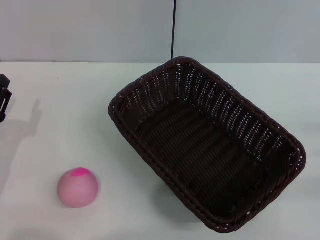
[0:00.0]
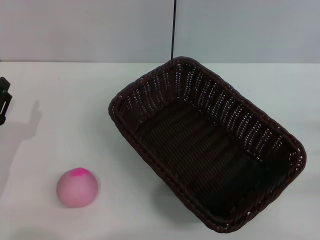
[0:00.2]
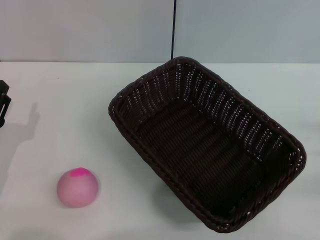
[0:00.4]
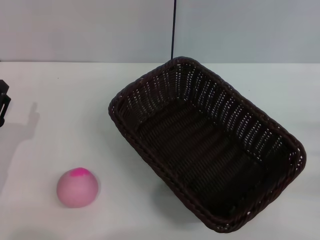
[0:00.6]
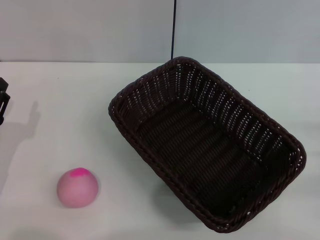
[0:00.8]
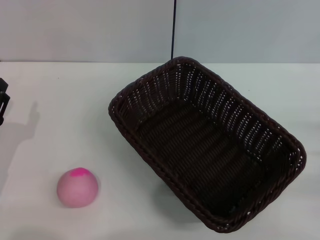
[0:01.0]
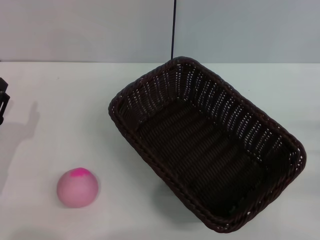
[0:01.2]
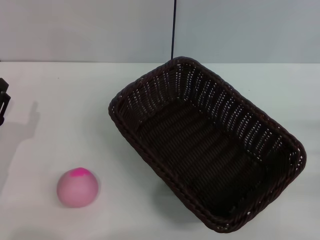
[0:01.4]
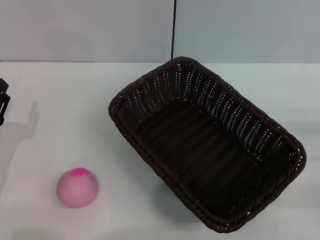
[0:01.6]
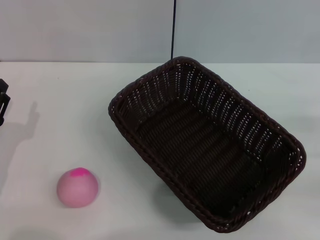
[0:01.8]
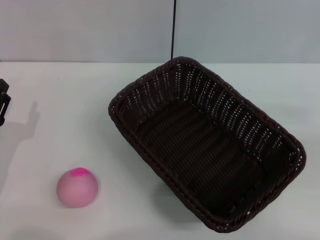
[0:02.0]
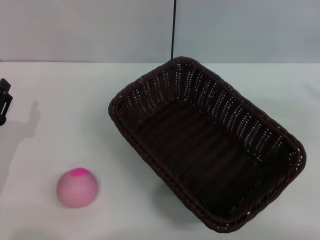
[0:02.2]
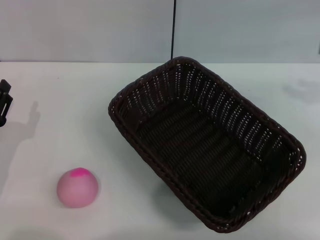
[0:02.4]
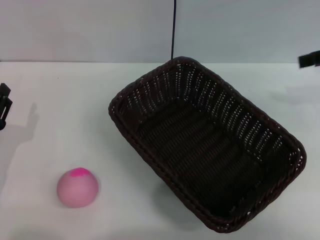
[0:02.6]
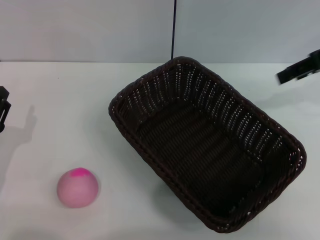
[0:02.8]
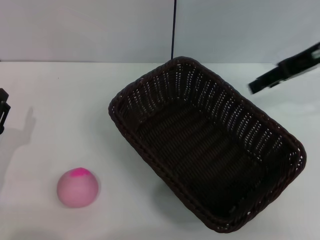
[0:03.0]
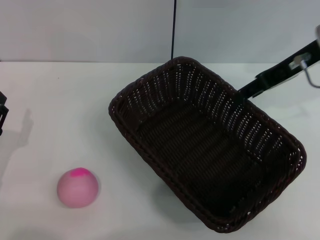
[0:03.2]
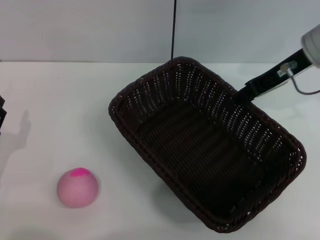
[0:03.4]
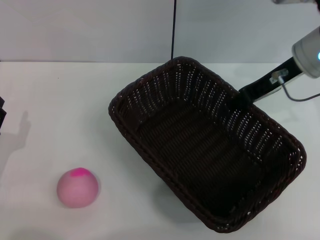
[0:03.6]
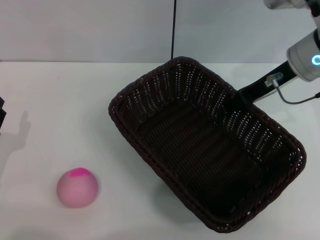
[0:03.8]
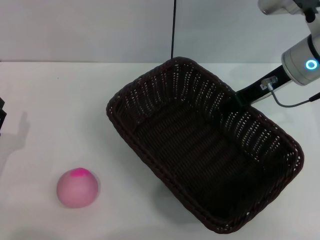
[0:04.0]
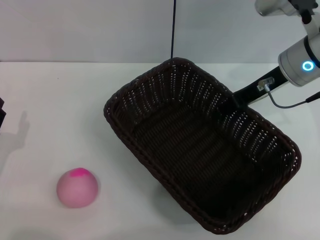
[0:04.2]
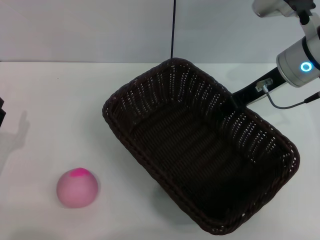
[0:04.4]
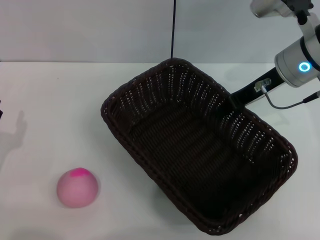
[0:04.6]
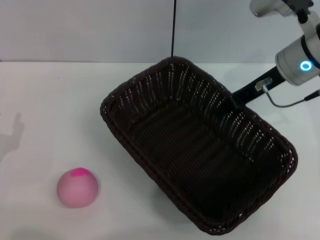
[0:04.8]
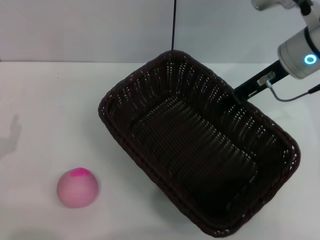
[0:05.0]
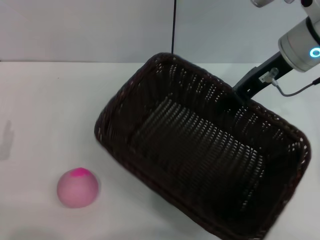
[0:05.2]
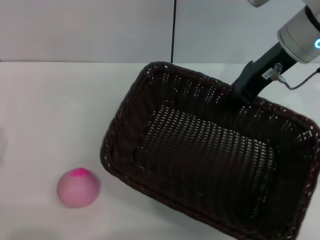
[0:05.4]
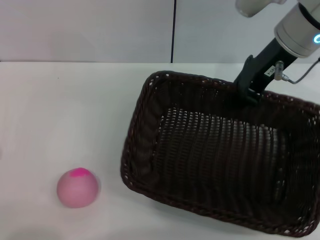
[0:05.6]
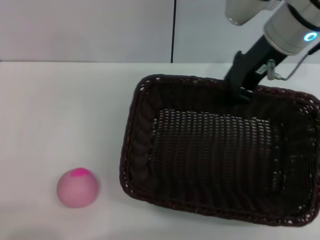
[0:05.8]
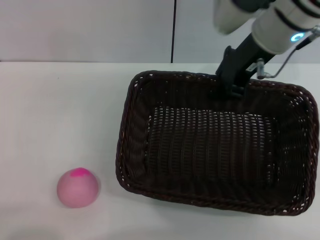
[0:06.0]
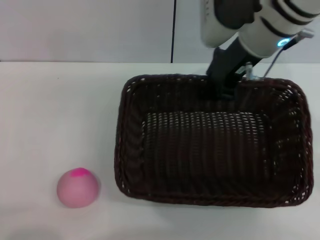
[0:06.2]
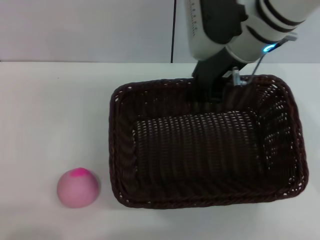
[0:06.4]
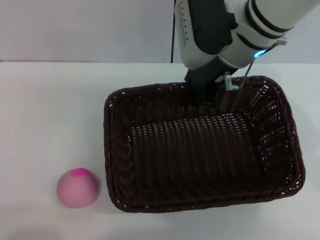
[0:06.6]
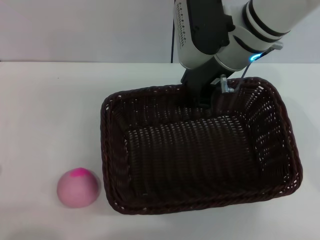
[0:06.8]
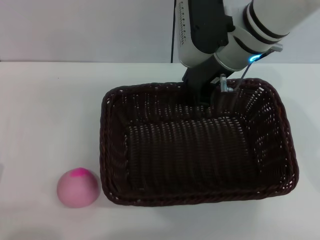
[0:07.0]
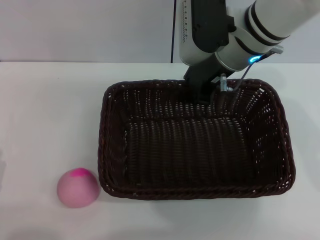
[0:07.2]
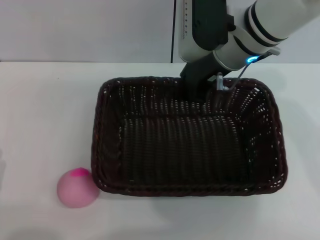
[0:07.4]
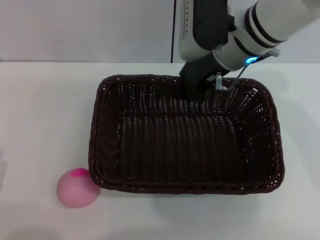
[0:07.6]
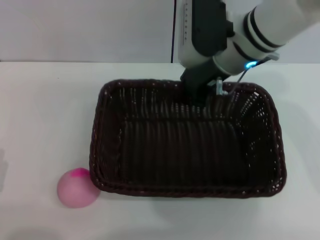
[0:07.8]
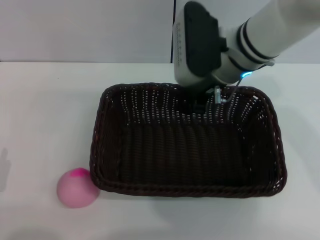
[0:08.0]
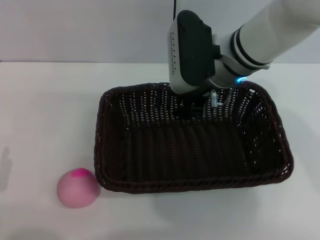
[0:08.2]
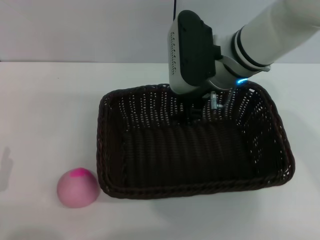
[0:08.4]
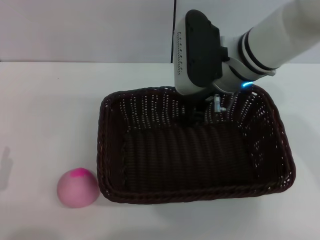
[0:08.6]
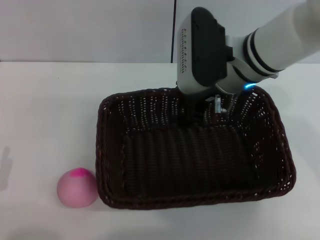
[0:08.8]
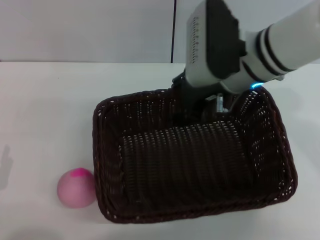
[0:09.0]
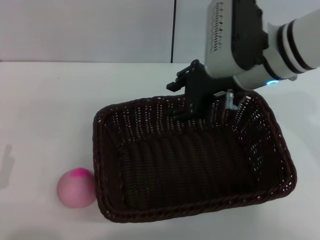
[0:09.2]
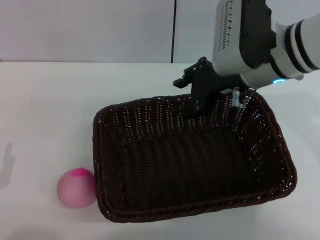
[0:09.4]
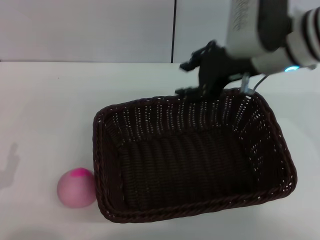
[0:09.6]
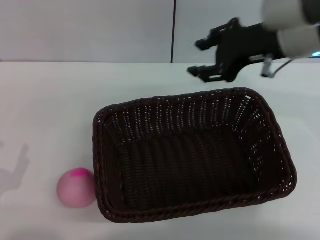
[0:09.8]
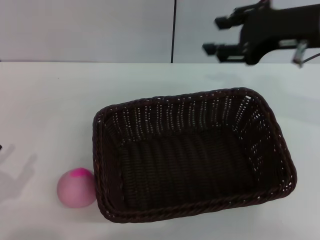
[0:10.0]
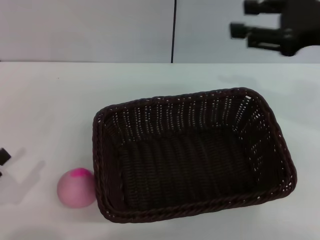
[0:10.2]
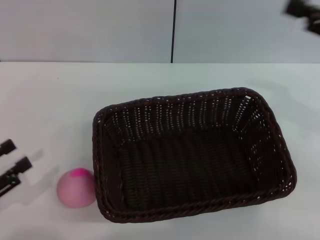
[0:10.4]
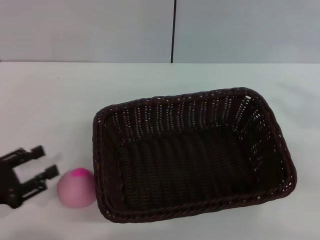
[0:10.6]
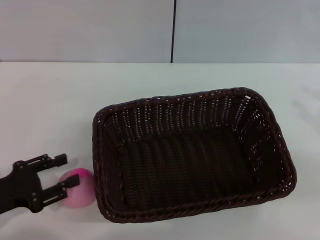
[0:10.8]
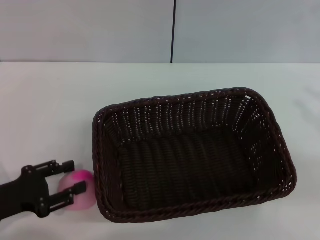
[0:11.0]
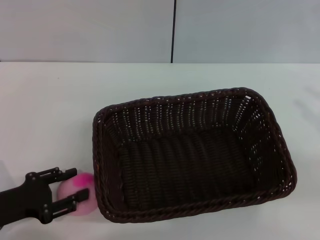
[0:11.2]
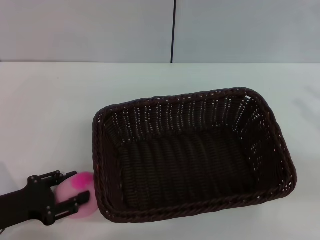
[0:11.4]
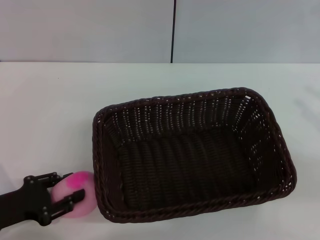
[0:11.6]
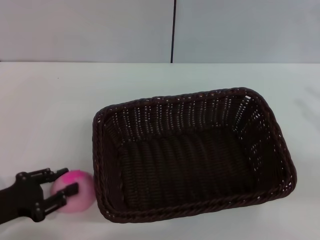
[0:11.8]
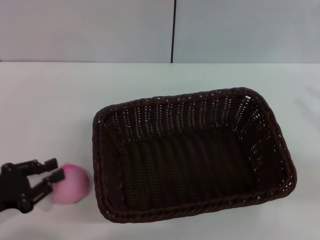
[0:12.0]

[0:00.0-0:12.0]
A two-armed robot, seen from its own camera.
Step, 0:00.0 to 0:05.4: Pick up the dark basket with the right gripper.
Step, 0:05.6 to 0:09.6: Place the dark basket in the center of view with the right gripper.
0:01.6 to 0:03.0: The right gripper heads upward, forward and to the left, covering about 30 cm.
0:03.0 to 0:04.4: The right gripper shifts about 10 cm downward and to the left, and closes up.
0:04.4 to 0:06.0: The right gripper goes about 10 cm upward and to the left, and closes; the left gripper travels backward by approximately 10 cm.
0:06.0 to 0:07.6: The right gripper ends up about 5 cm from where it was.
0:07.6 to 0:09.0: The right gripper opens up.
0:09.0 to 0:10.4: The left gripper moves roughly 5 cm; the right gripper is displaced to the right and backward by some 20 cm.
0:10.4 to 0:12.0: The right gripper moves downward and to the right, approximately 10 cm.

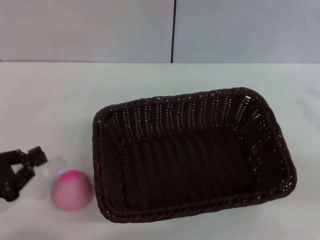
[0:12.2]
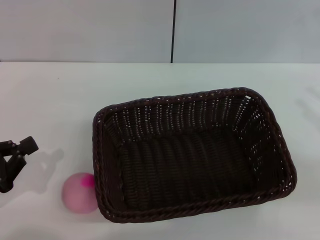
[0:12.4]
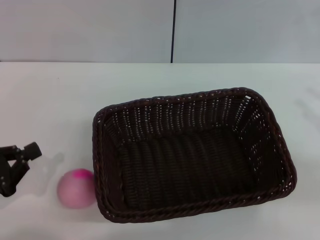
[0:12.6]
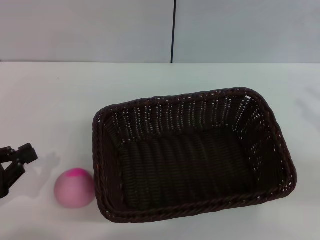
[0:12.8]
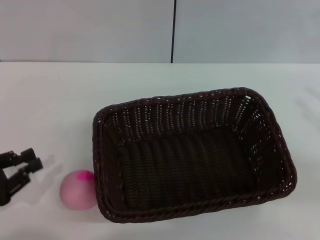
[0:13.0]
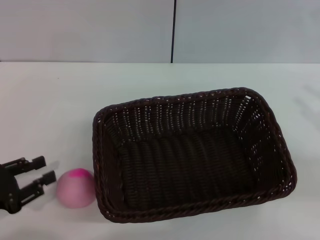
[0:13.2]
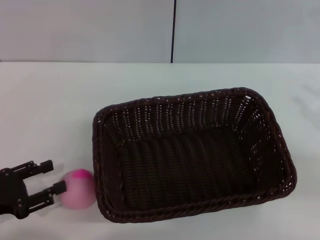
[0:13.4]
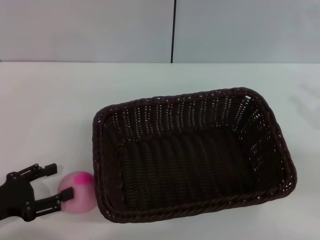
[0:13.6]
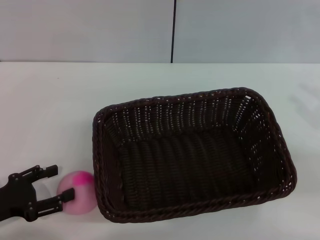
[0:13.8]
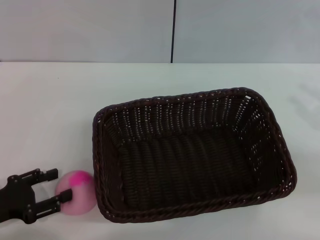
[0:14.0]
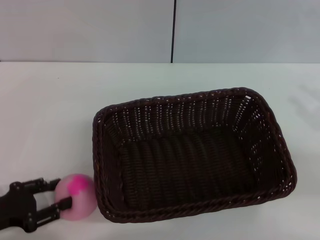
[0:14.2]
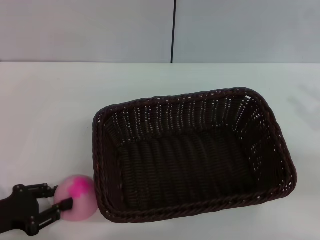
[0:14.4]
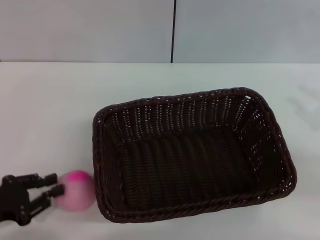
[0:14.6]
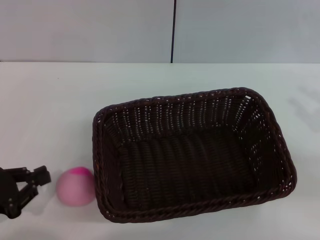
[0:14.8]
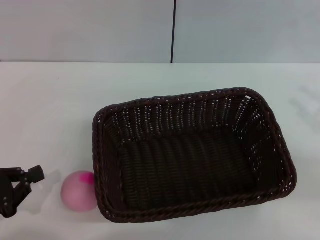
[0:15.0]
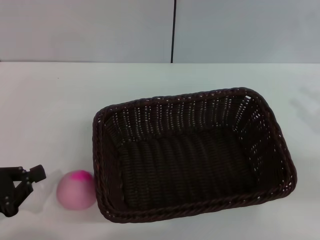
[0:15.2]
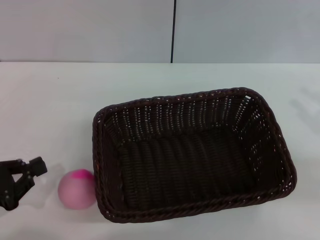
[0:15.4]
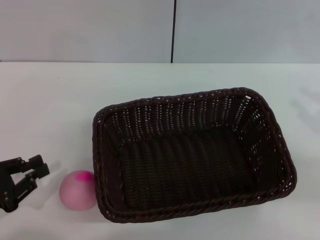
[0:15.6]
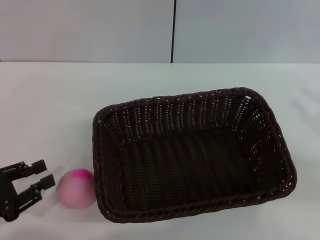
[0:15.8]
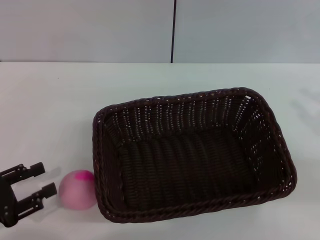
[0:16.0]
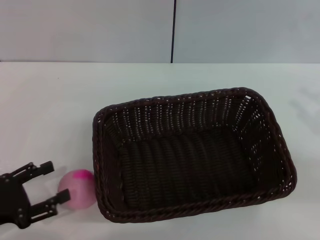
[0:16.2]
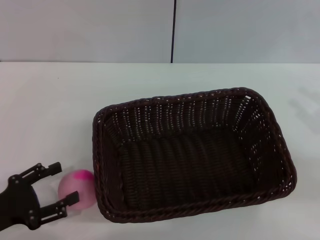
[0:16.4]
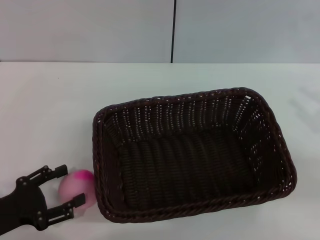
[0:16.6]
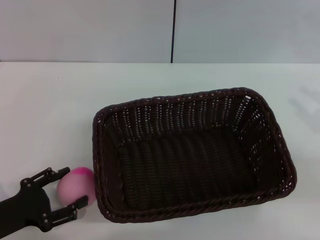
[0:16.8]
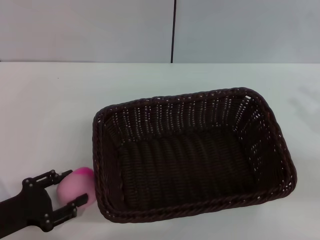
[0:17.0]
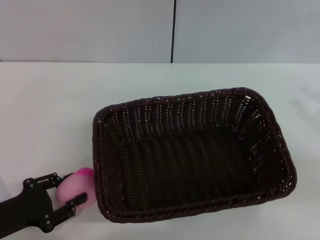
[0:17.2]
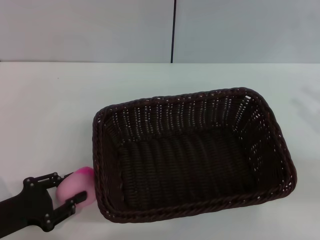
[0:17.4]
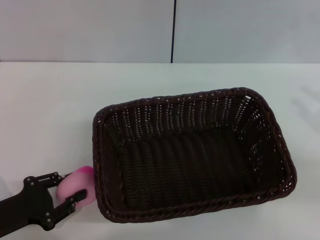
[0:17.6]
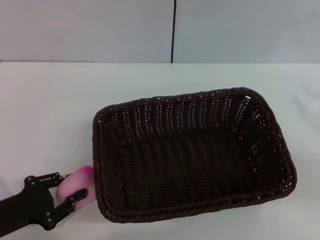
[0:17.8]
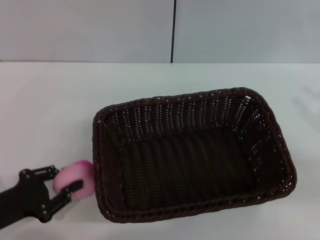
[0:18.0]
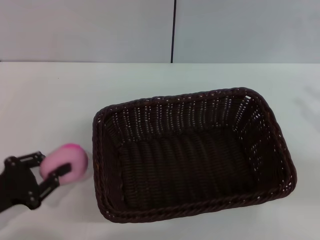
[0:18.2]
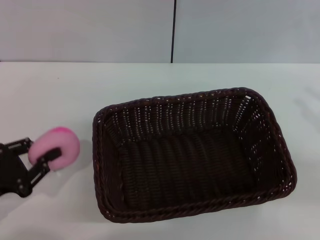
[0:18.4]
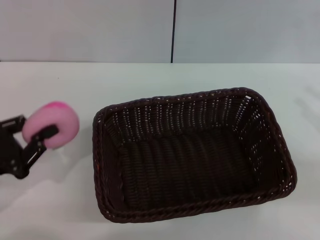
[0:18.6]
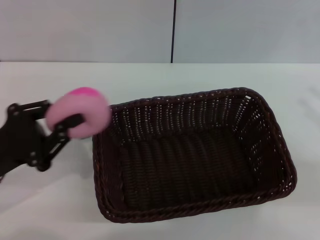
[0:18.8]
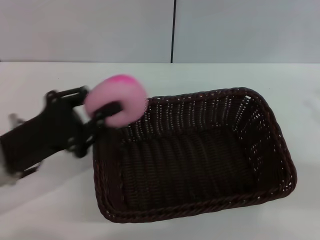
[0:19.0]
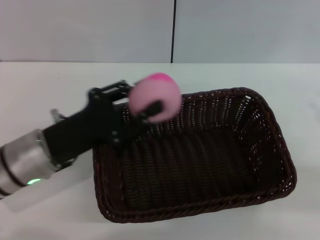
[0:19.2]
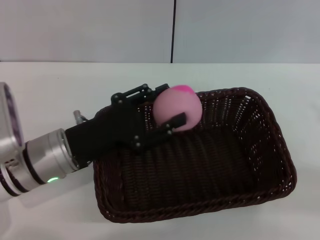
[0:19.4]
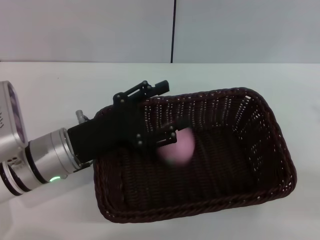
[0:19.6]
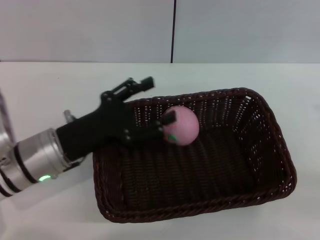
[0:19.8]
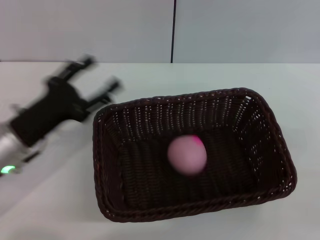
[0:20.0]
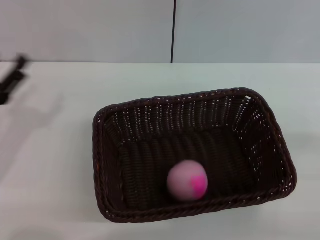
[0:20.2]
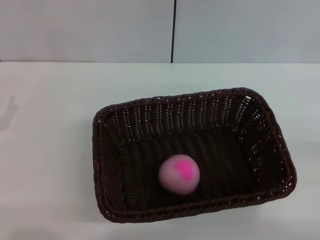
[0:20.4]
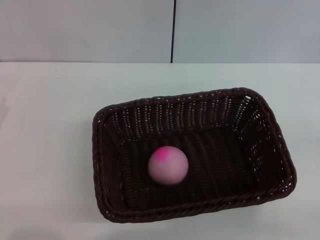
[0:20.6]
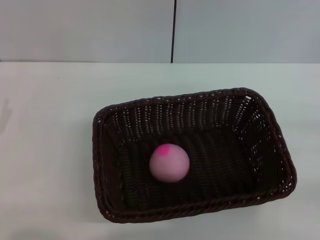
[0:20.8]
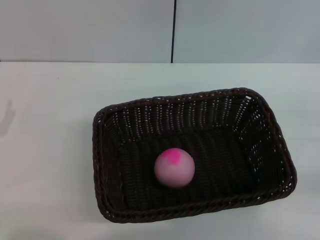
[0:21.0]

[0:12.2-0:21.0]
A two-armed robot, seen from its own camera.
Step, 0:12.2 to 0:18.4: Pick up the peach with the left gripper.
Step, 0:18.8 to 0:19.8: Place the peach into the basket with the left gripper.
0:12.2 to 0:13.6: The left gripper opens its fingers.
0:13.6 to 0:15.2: The left gripper closes up.
0:15.2 to 0:16.6: The left gripper opens its fingers.
0:16.6 to 0:18.0: The left gripper closes.
0:18.0 to 0:19.6: The left gripper is displaced to the right and forward by approximately 15 cm, and opens.
0:19.6 to 0:21.0: The right gripper shifts approximately 5 cm downward. The left gripper moves to the left, about 15 cm.

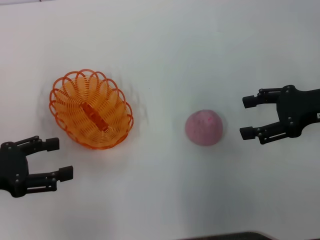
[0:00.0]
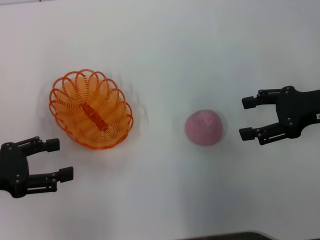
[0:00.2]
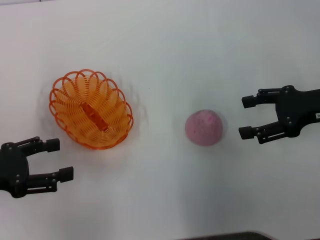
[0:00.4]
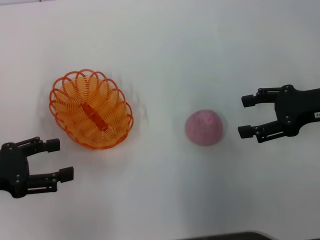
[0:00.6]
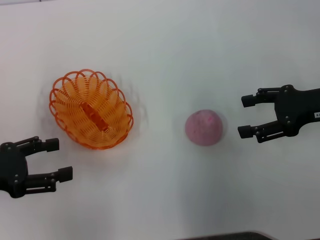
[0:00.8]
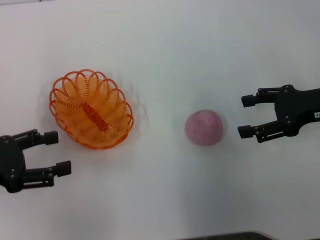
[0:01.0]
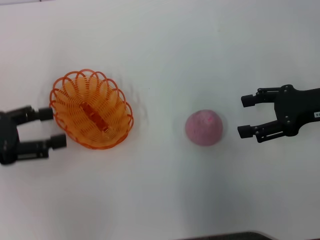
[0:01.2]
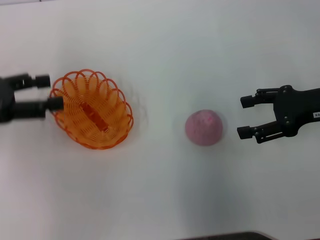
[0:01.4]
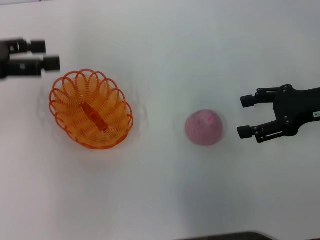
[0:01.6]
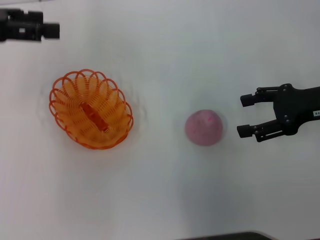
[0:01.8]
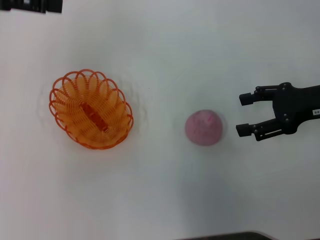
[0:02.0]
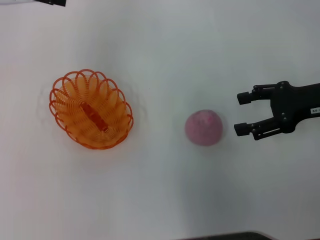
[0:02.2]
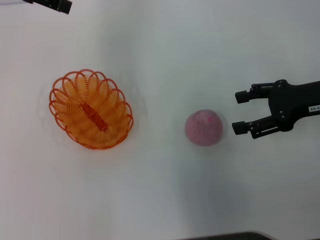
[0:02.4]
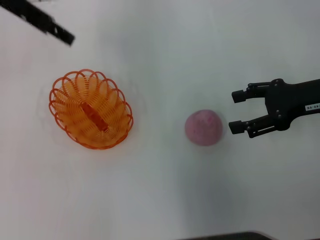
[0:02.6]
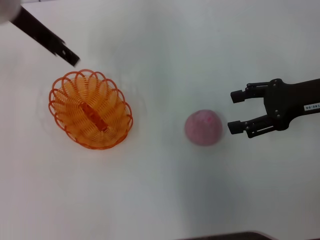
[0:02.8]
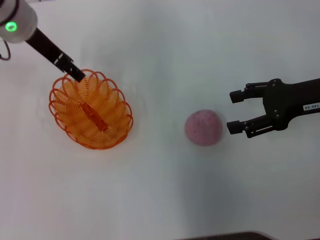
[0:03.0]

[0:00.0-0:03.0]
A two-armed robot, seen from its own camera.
0:00.0 to 0:01.6: The left gripper shifts approximately 15 cm upward and forward.
0:01.6 to 0:03.0: The left gripper moves to the right and forward, some 15 cm.
